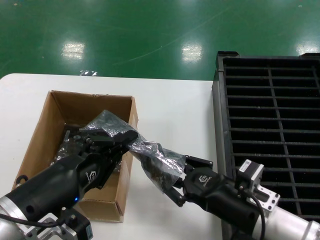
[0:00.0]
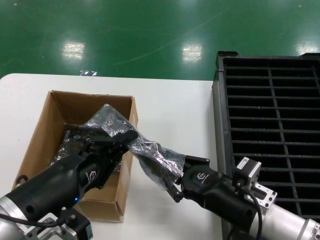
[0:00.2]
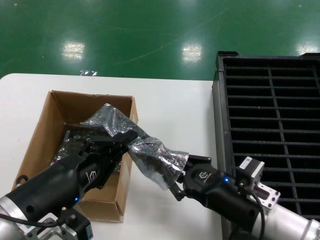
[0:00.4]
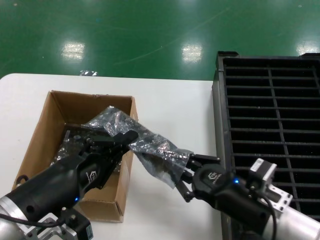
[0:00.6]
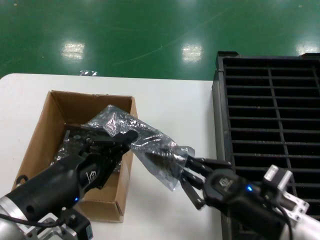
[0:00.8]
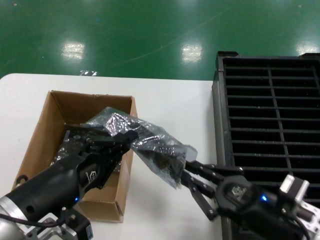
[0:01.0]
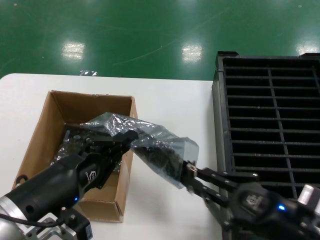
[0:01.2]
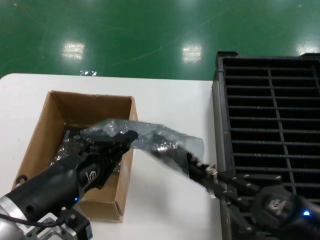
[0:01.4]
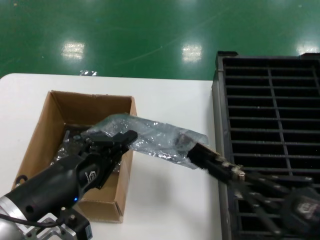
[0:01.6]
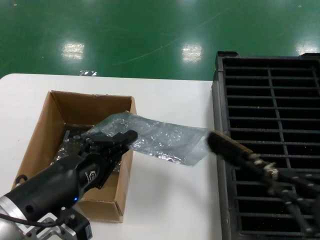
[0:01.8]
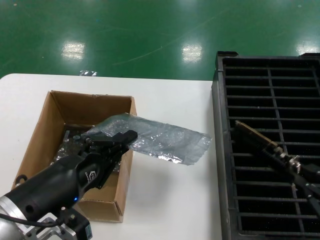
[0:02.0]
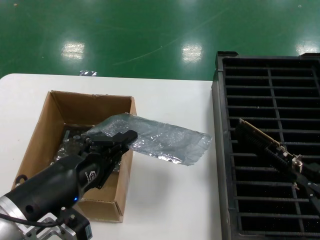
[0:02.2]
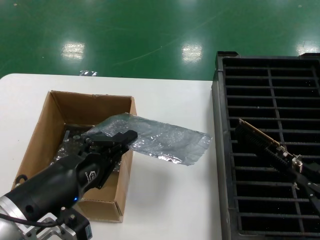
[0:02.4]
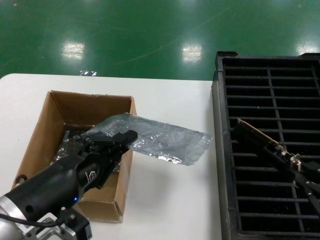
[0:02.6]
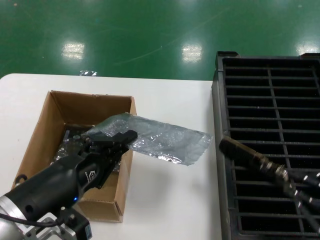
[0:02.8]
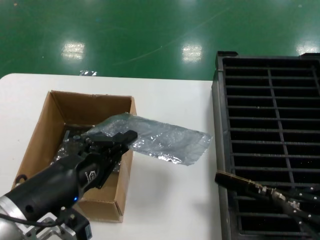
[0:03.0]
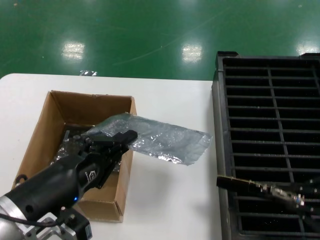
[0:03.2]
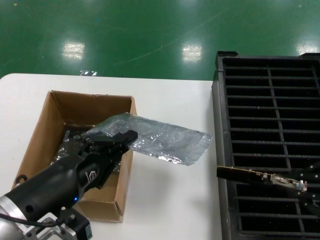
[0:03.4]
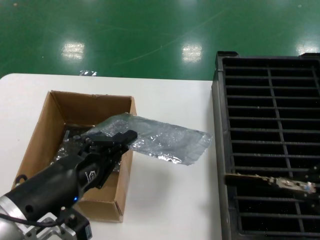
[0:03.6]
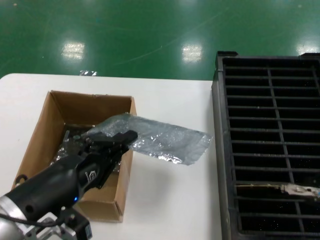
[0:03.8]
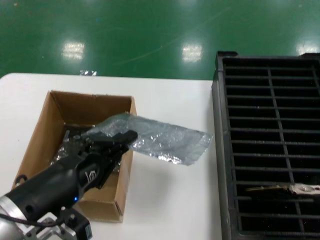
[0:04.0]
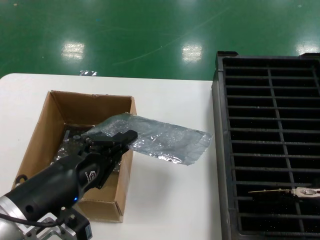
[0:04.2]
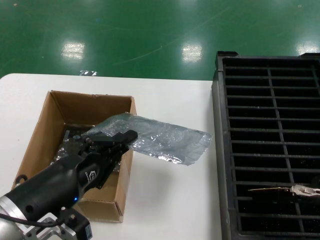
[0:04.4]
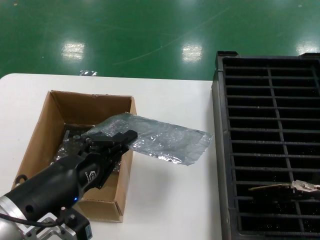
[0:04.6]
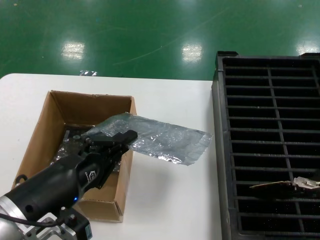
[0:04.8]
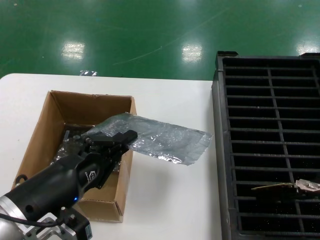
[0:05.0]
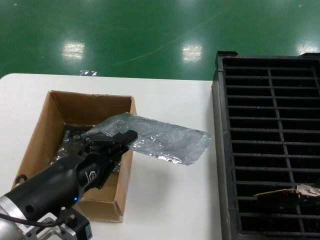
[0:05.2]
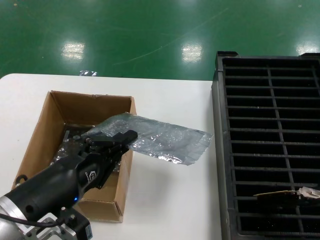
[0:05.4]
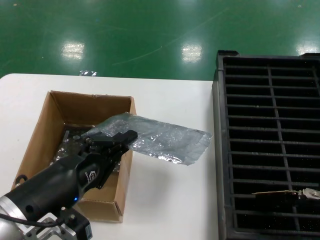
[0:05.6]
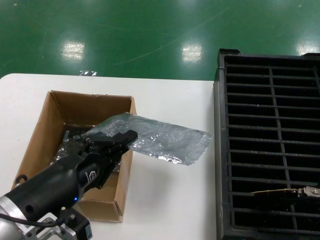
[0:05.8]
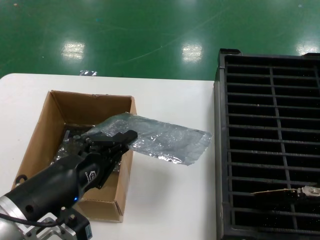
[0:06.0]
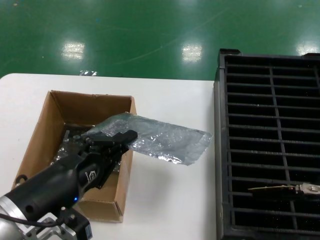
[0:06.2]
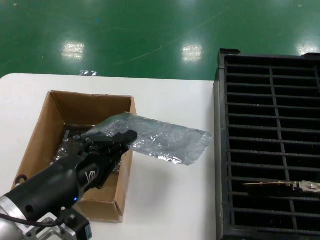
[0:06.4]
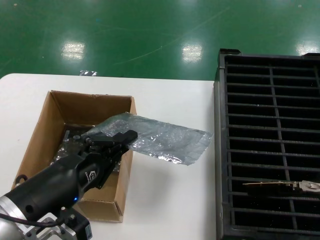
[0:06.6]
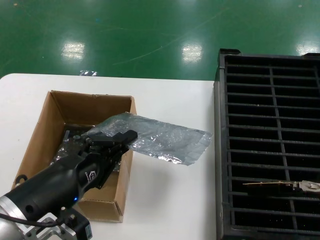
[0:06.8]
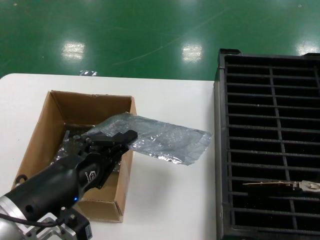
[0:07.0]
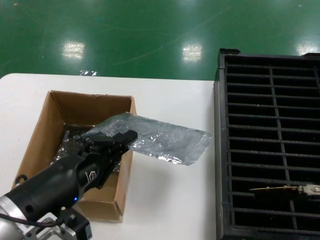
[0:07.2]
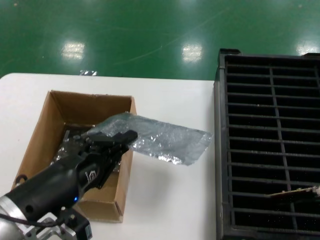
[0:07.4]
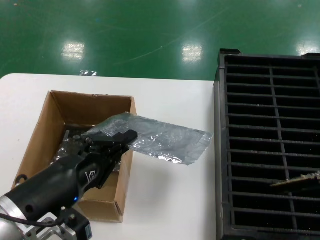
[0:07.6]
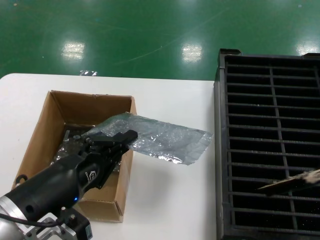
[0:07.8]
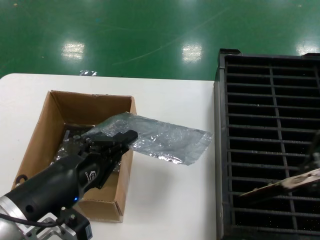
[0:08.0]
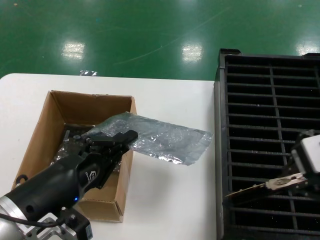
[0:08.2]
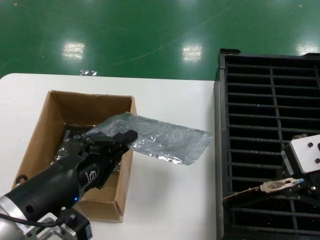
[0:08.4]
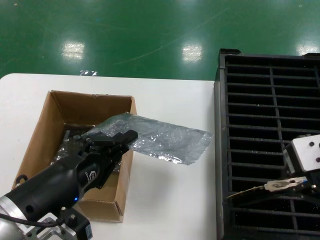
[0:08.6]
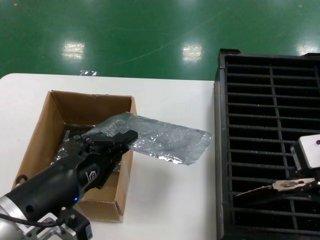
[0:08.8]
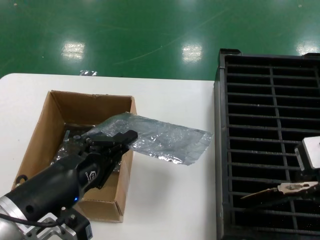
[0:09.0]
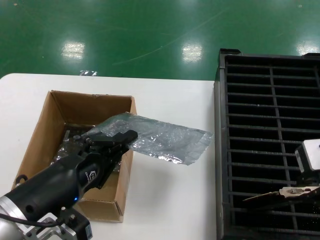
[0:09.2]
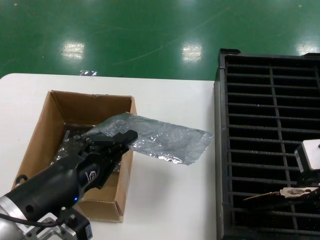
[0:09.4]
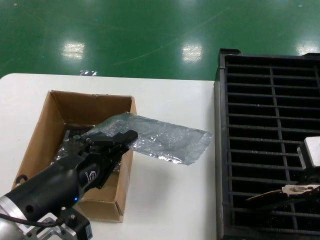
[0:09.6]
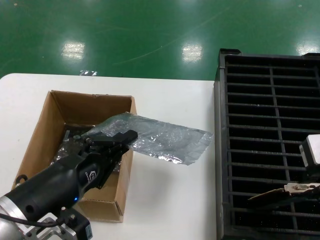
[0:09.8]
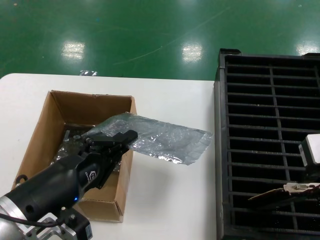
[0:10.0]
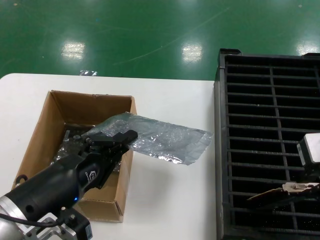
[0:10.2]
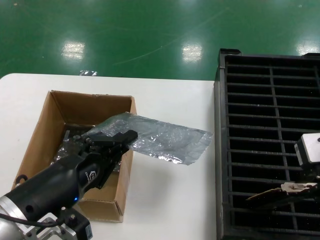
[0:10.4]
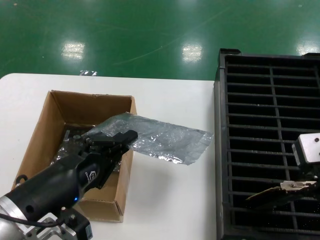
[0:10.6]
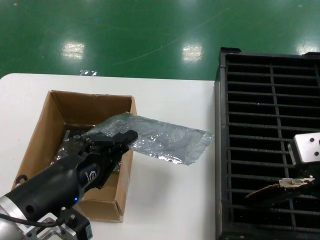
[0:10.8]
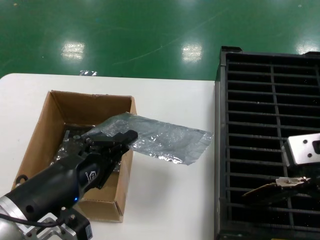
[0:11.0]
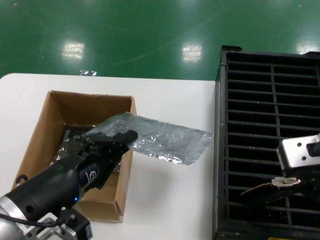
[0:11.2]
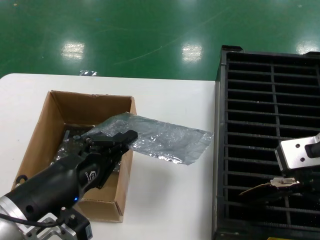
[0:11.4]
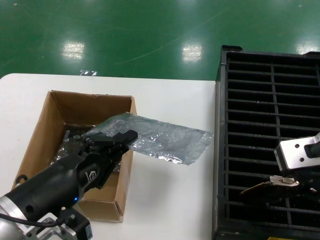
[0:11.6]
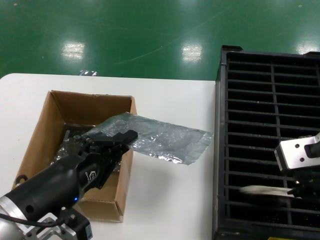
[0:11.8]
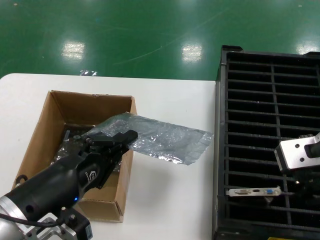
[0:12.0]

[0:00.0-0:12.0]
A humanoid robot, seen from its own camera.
Task of the whole recording: take out graphics card from box remove packaging put into black container.
0:00.0 to 0:01.6: The right hand travels to the right, backward and upward by about 15 cm.
0:01.6 to 0:03.0: The right hand heads upward, covering approximately 5 cm.
0:03.0 to 0:04.4: The right hand goes about 15 cm upward and forward.
0:04.4 to 0:06.0: The hands make only small movements.
0:06.0 to 0:07.6: The right hand is displaced upward by some 5 cm.
0:07.6 to 0:09.0: The right hand goes some 5 cm to the left.
0:10.4 to 0:12.0: There are only small adjustments of the hands.

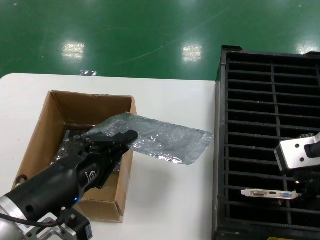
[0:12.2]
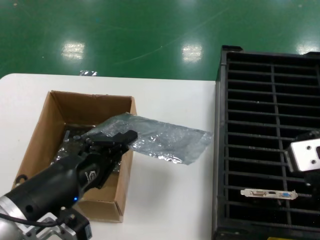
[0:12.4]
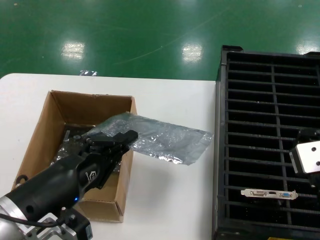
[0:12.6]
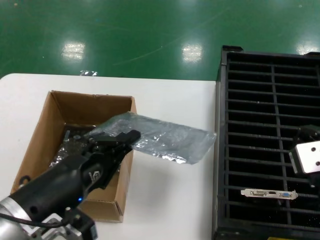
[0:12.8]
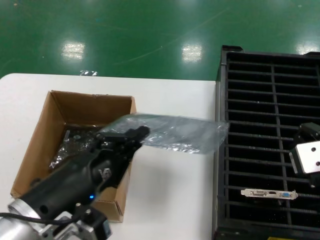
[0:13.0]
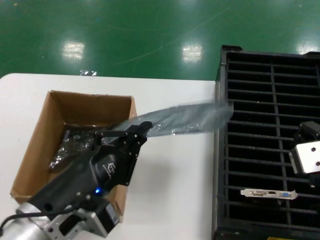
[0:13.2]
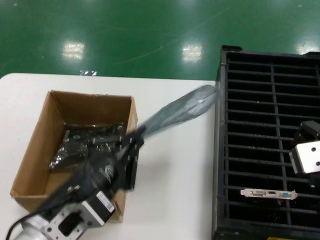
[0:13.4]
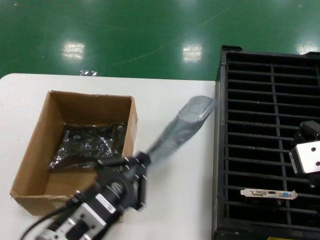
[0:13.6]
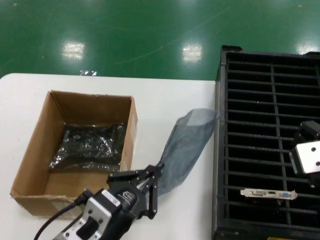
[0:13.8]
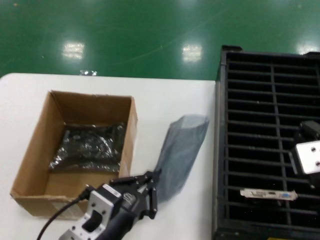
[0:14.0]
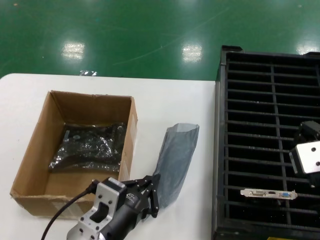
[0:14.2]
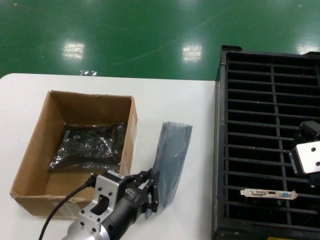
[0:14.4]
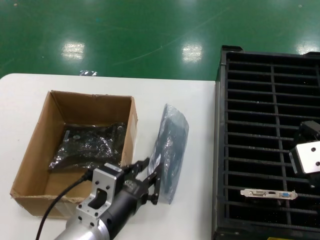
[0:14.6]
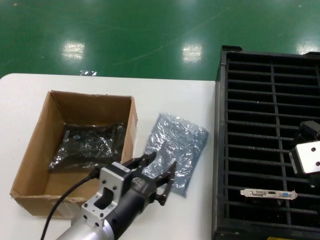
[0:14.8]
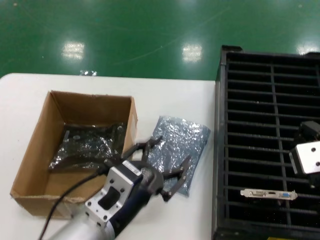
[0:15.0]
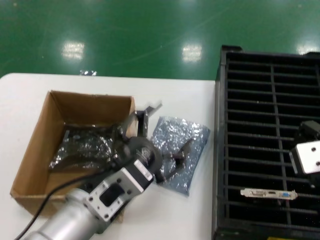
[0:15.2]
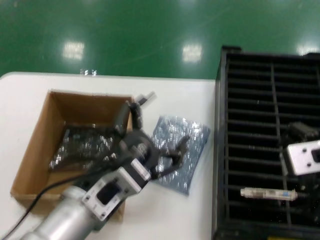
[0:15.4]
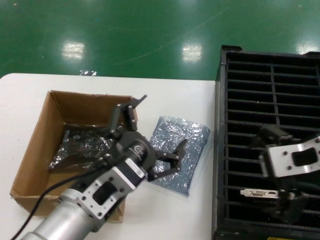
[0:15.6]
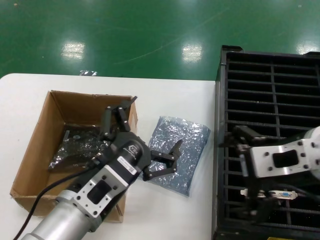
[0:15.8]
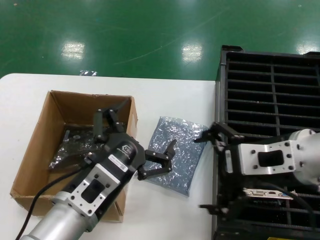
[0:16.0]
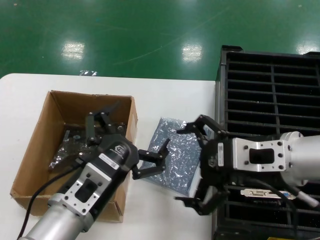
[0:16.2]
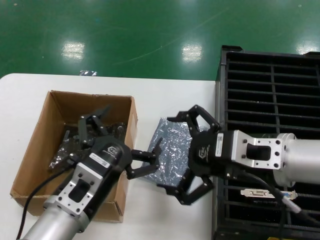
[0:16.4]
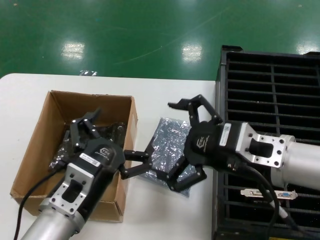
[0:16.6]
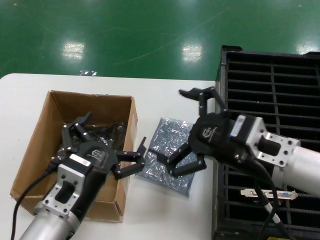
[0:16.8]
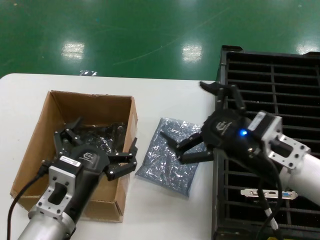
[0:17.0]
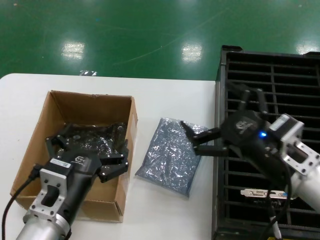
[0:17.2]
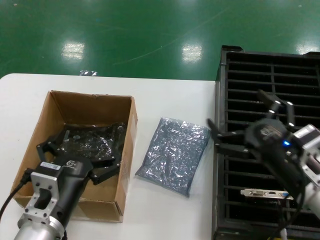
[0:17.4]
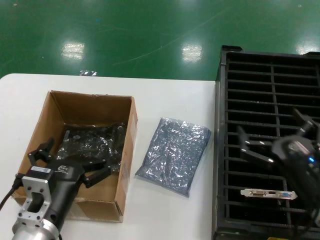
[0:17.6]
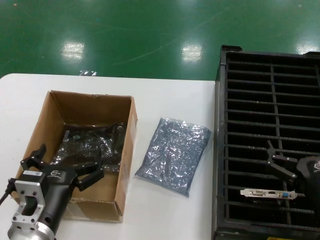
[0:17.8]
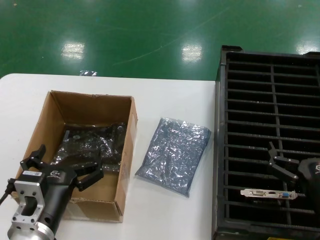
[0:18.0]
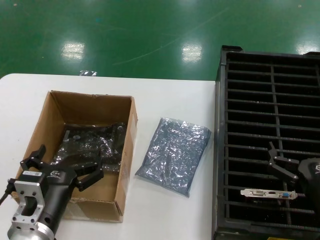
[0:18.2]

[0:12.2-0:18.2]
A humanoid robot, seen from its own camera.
Task of the whole recording: take out graphics card from box remove packaging put into black container.
Step, 0:12.2 to 0:14.8: Place the down the bag.
0:12.2 to 0:13.8: The left hand moves to the right, roughly 10 cm.
0:13.8 to 0:15.2: The left hand changes place by approximately 5 cm.
0:15.2 to 0:16.6: The left hand ends up about 5 cm from where it was. Meanwhile the right hand goes approximately 10 cm downward and to the left.
0:16.6 to 0:18.2: The left hand is displaced downward by roughly 5 cm. The right hand heads downward and to the right, covering about 20 cm.

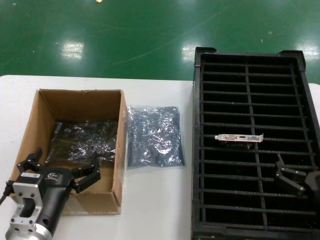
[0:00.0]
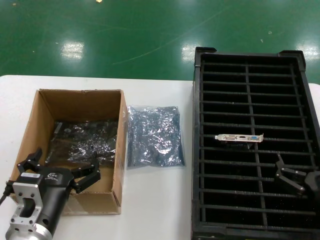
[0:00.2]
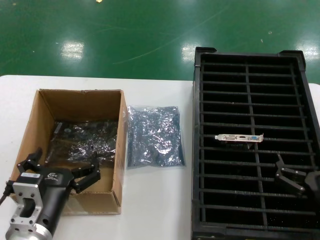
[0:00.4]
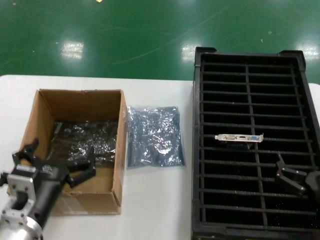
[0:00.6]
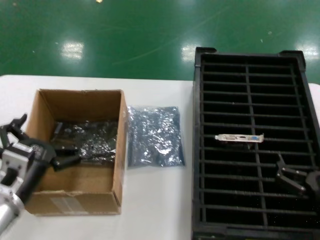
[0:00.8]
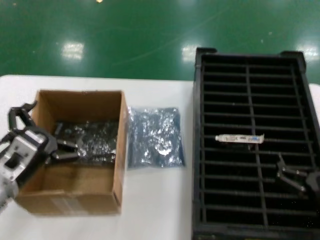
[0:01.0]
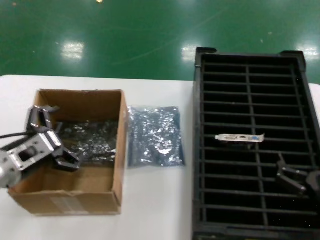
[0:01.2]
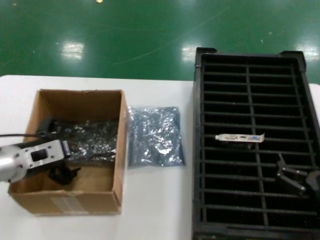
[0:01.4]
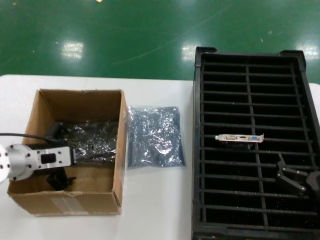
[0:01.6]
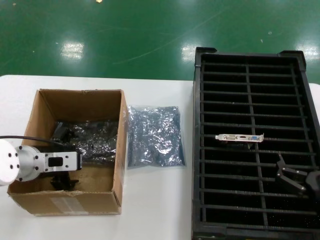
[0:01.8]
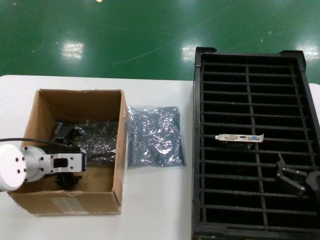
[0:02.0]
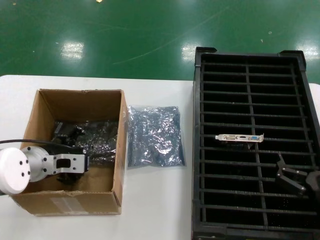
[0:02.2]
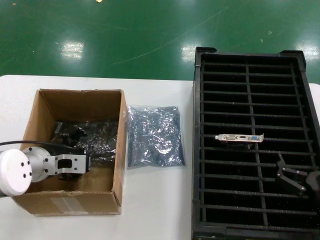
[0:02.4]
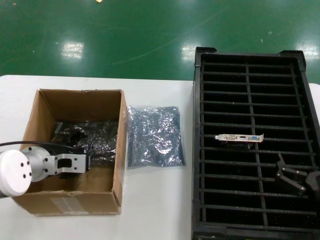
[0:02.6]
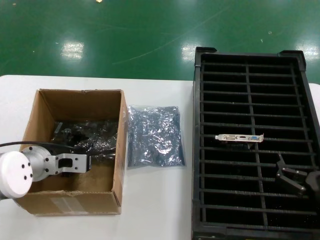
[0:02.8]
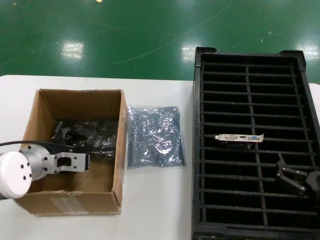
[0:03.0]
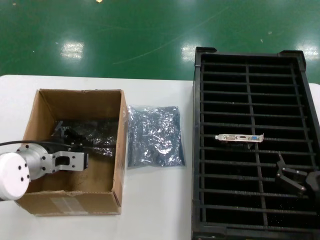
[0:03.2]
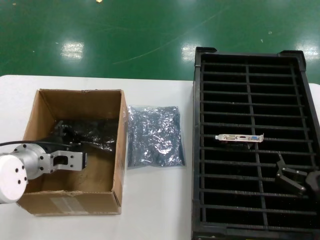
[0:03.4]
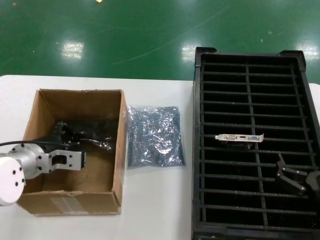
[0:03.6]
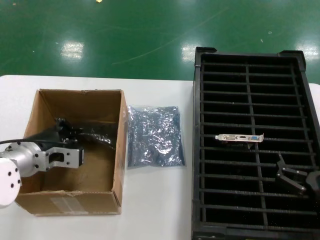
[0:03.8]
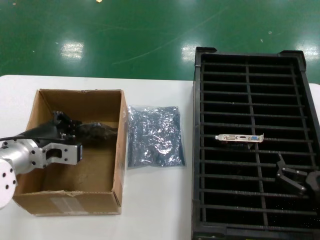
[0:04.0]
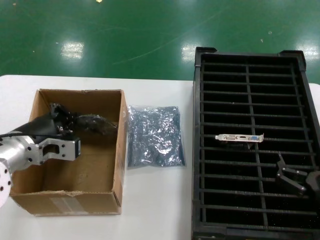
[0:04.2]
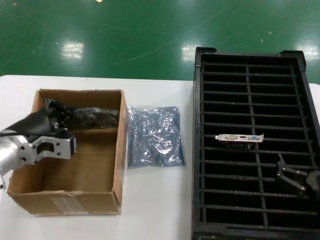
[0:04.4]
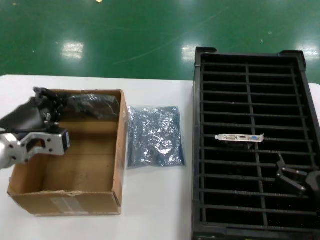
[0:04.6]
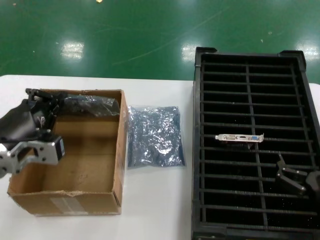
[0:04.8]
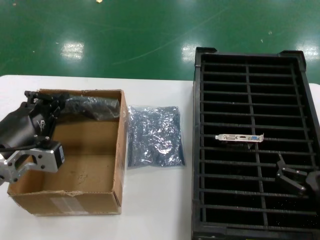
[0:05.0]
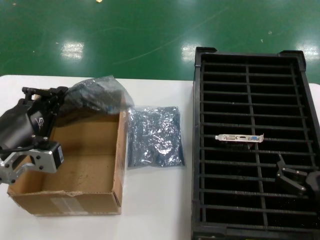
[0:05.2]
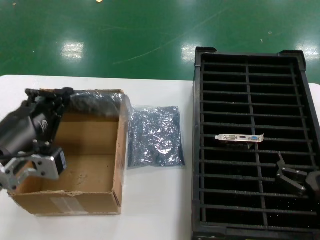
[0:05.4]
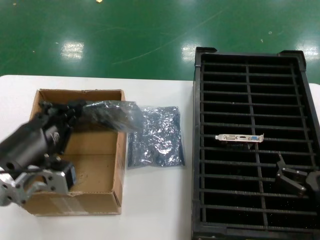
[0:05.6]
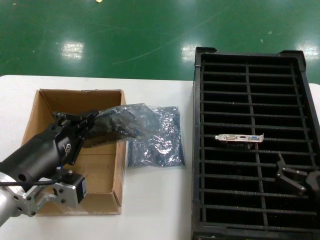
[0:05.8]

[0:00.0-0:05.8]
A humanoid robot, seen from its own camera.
Task of the whole recording: take out graphics card from box remove packaging put into black container.
Step, 0:00.0 to 0:03.2: Grasp the bag.
0:00.0 to 0:01.4: The left hand is displaced forward, to the left and upward by approximately 20 cm.
0:01.4 to 0:02.8: The left hand shifts by some 5 cm.
0:02.8 to 0:04.4: The left hand is displaced backward and upward by some 10 cm.
0:04.4 to 0:05.8: The left hand shifts roughly 15 cm backward.
